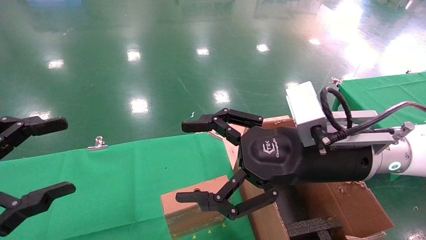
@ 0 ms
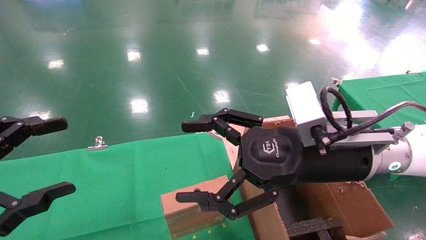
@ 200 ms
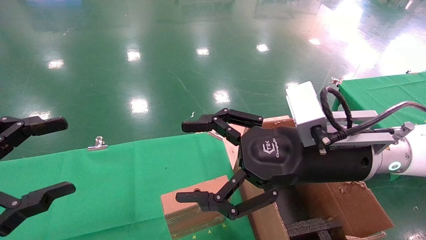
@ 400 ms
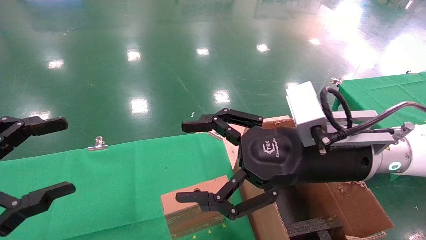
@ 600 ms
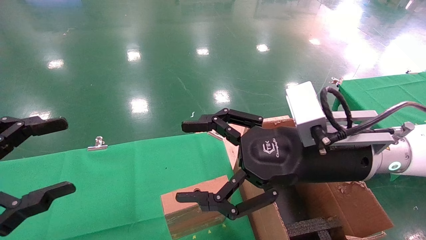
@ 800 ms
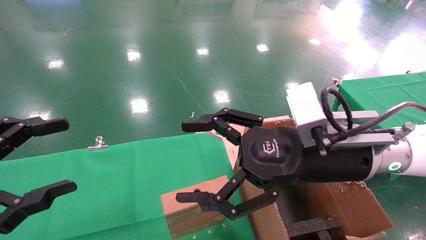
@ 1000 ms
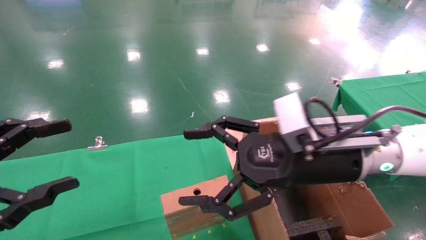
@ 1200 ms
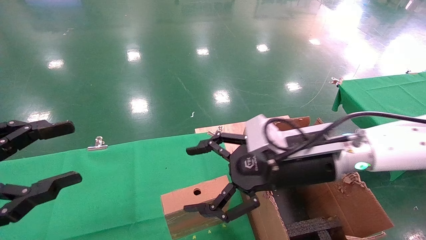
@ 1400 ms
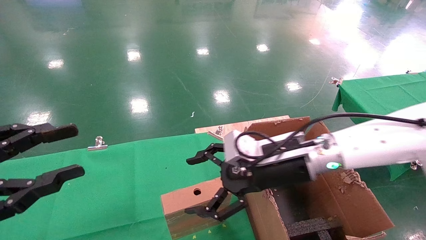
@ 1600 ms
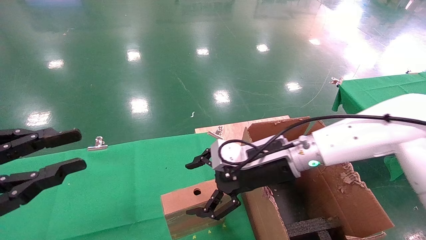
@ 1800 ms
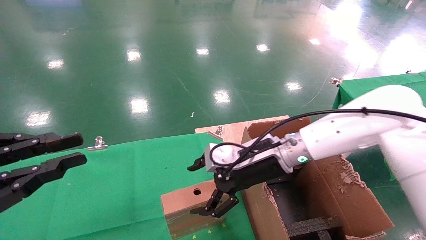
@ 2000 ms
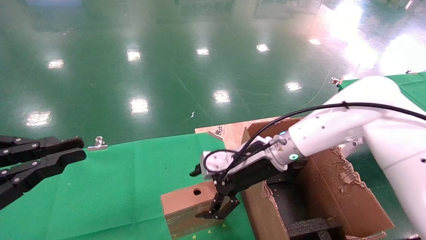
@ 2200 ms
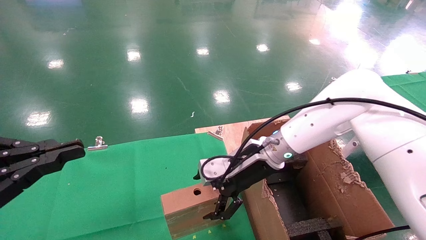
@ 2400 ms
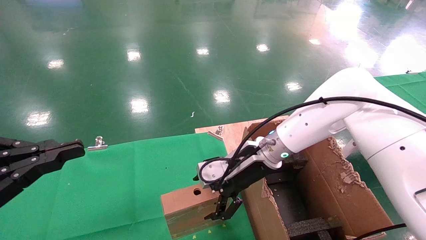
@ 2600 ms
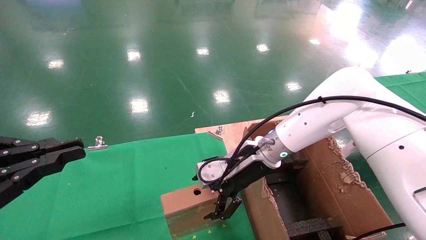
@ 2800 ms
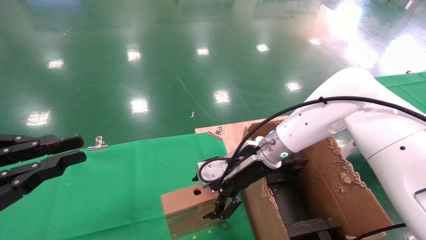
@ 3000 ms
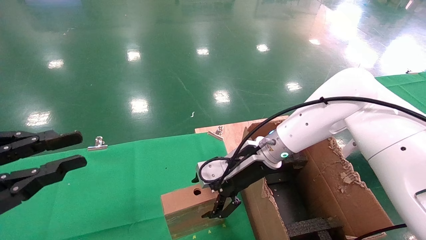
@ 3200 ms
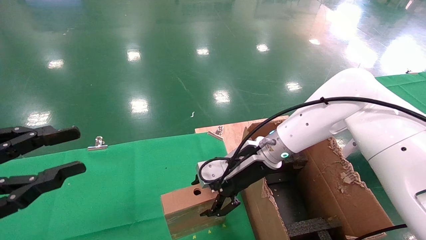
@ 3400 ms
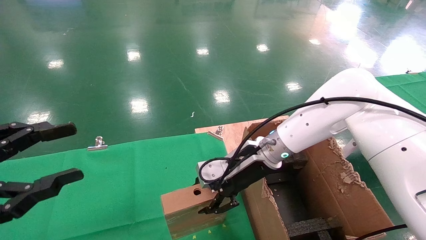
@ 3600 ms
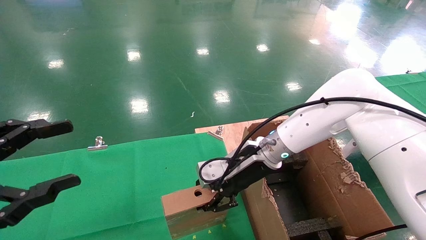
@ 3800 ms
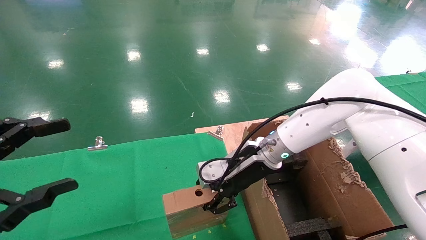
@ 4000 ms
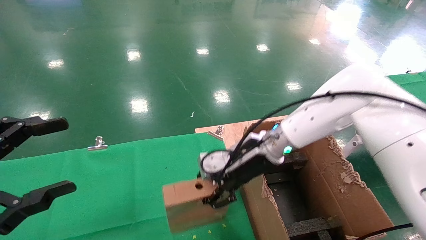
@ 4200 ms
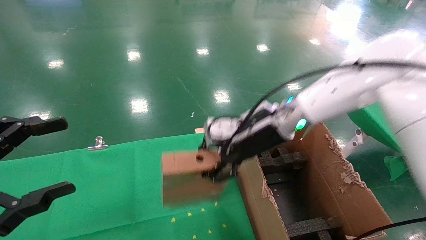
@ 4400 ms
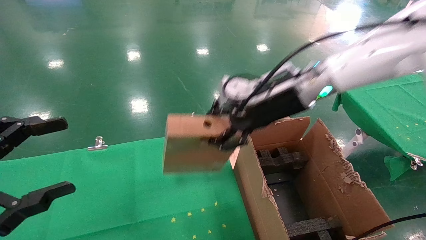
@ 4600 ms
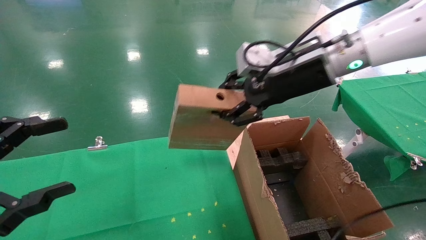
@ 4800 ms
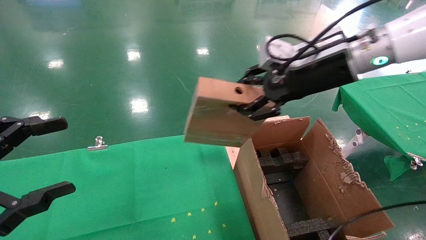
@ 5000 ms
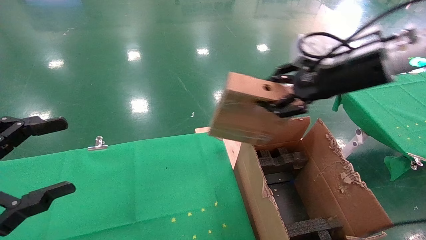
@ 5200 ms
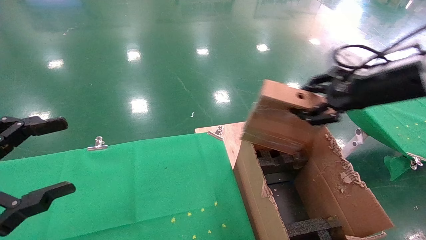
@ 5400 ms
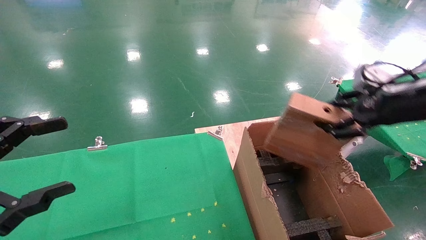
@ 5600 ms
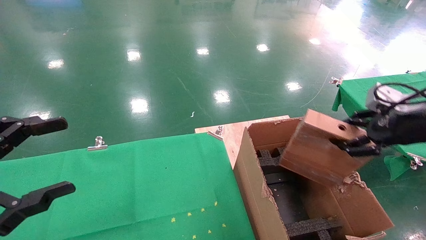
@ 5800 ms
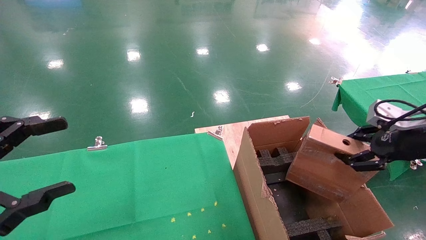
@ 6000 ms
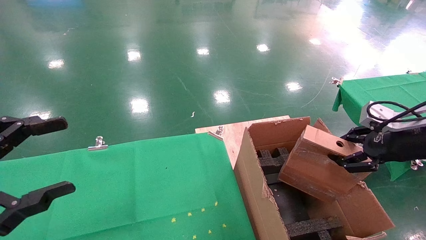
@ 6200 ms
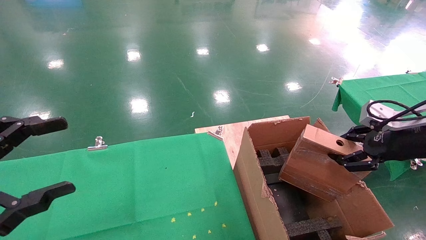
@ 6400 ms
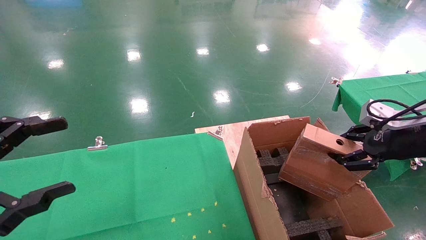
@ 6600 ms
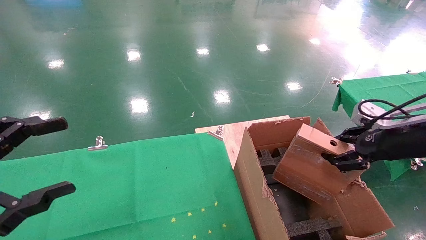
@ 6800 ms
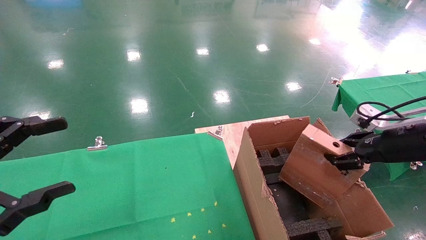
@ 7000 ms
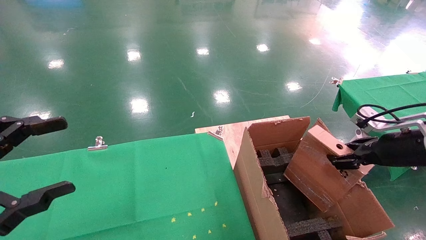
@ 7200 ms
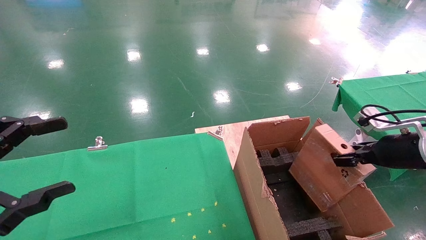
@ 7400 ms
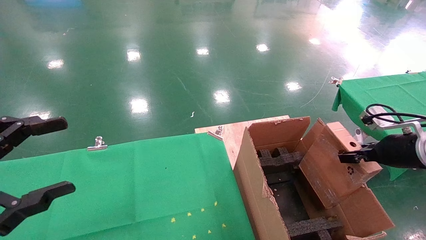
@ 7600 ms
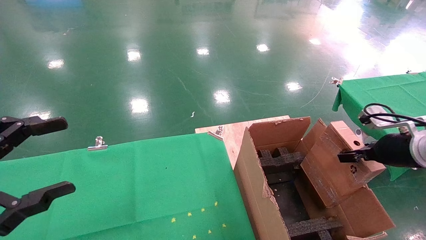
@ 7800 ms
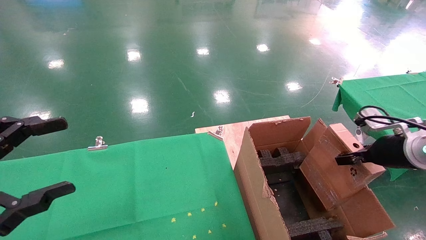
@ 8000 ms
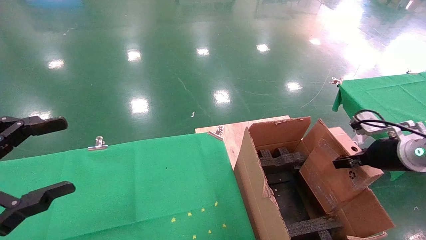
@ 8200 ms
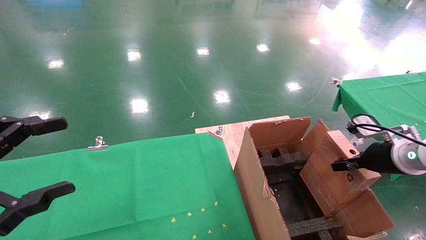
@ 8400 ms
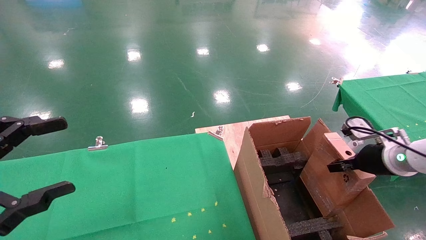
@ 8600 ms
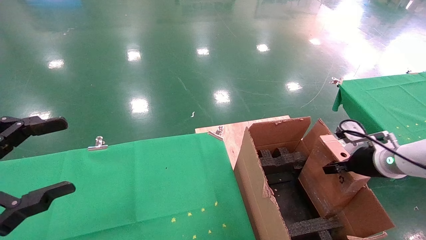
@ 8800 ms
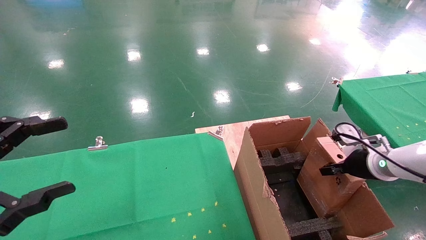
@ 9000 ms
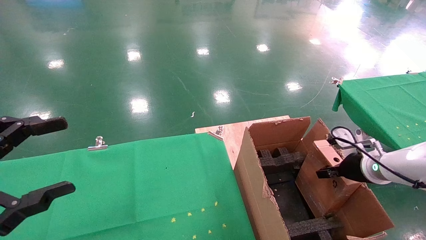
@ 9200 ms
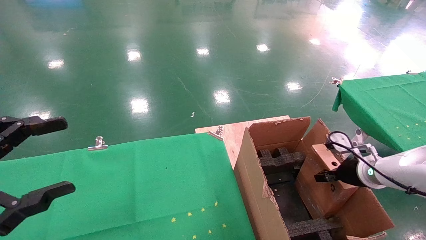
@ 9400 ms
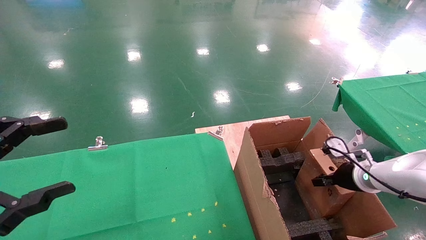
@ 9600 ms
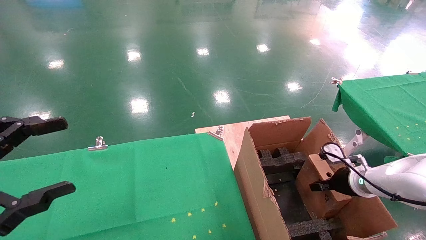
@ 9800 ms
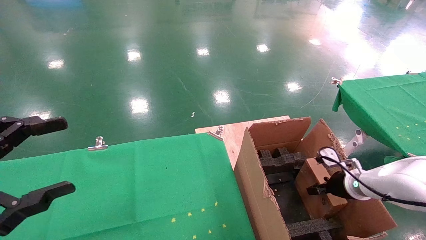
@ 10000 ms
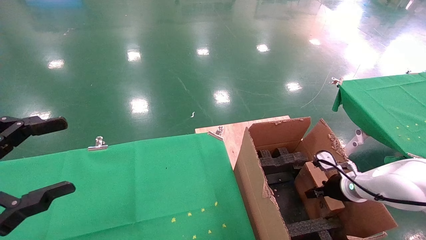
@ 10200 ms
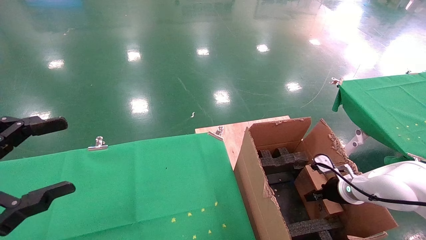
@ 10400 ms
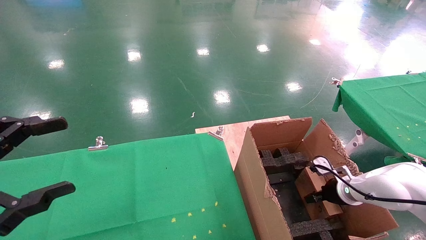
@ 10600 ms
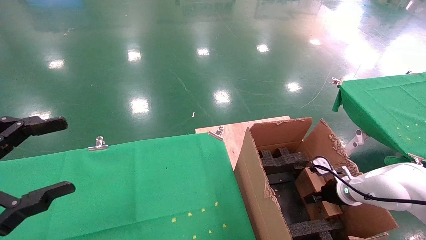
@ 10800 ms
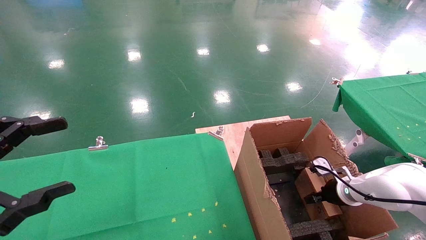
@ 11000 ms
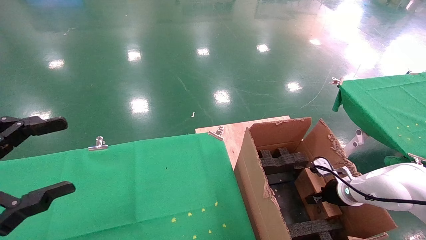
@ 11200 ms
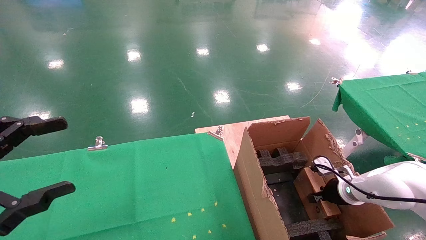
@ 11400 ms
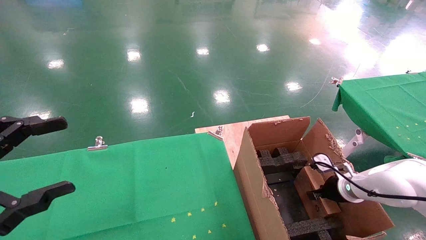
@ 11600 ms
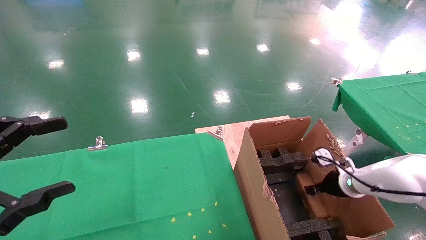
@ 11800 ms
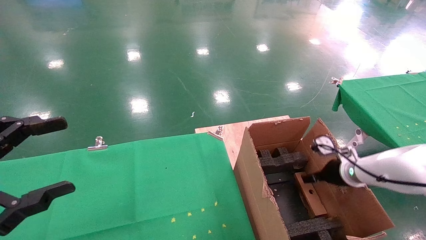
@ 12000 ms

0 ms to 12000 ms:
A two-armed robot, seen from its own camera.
Task of the whole recording: using a robotic arm to pick up a cardboard box and palace it the carton.
Step, 1200 ms to 3800 ms: Pick up the mouse and the power cord paper box.
0 ms to 1600 ms: The right gripper heads forward and downward, covering approximately 10 cm. The left gripper closes its fingers.
1600 ms to 3000 ms: The left gripper closes. The right gripper heads forward, covering some 5 cm.
3000 ms to 4400 ms: The right gripper is displaced upward by approximately 10 cm, and closes up. Meanwhile the left gripper opens up.
4400 ms to 6000 ms: The right gripper heads to the right and backward, covering some 30 cm.
6000 ms to 7600 ms: The right gripper travels downward by roughly 5 cm.
7600 ms to 9000 ms: The right gripper travels downward and forward by some 10 cm.
9000 ms to 10400 ms: The right gripper shifts about 10 cm downward.
10400 ms to 12000 ms: The right gripper goes approximately 5 cm upward, and opens its fingers.

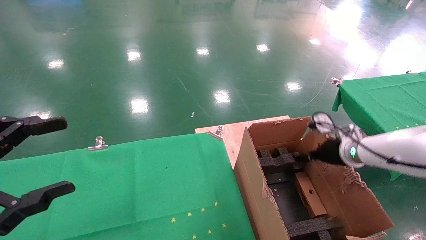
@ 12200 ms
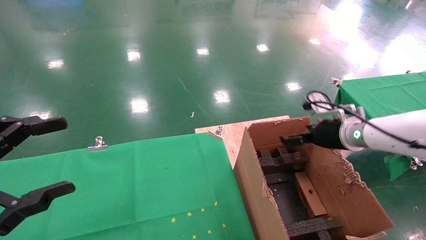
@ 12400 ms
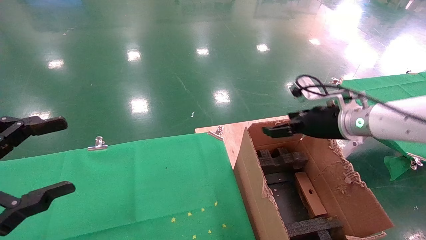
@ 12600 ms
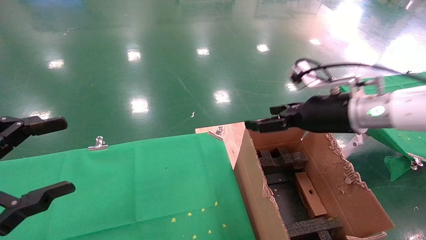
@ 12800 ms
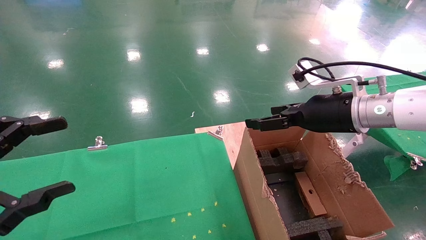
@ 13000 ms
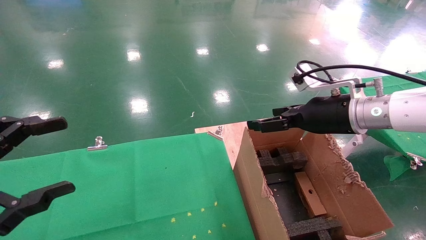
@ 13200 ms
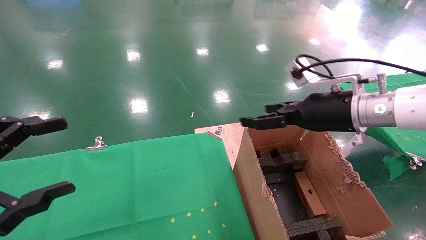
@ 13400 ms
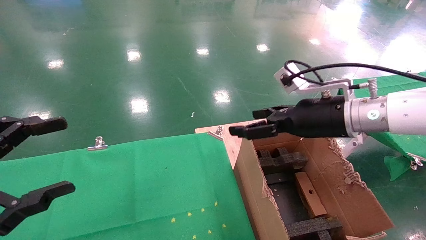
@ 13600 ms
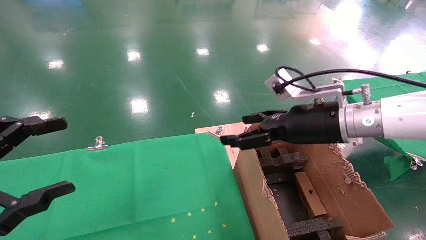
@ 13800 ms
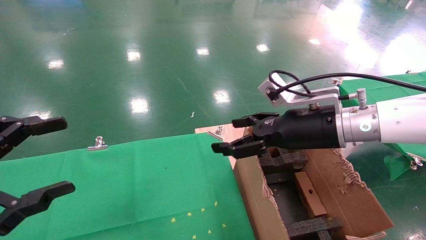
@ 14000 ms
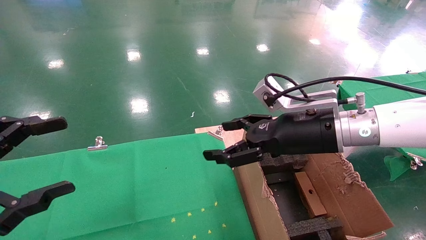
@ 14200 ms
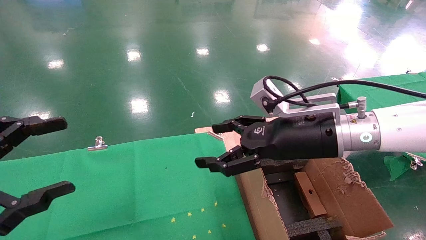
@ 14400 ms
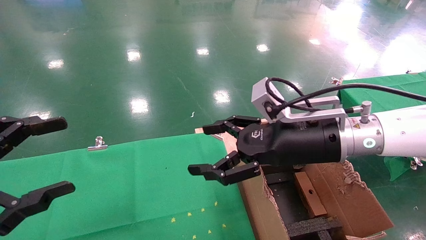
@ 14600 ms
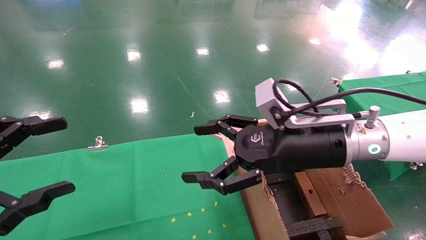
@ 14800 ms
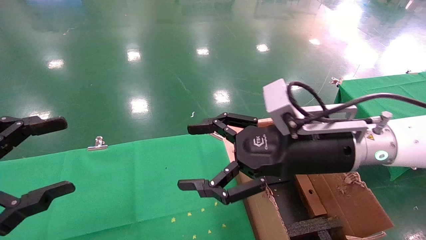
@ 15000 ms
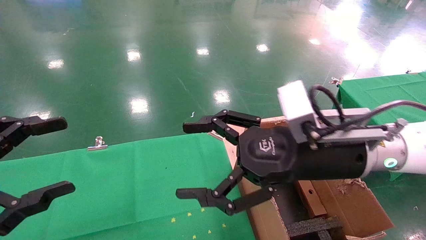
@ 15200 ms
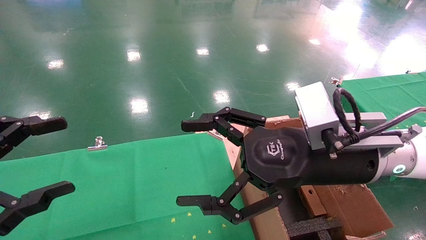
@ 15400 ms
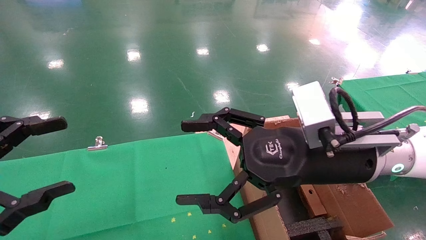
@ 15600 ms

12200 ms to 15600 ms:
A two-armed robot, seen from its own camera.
Task of the whole recording: using a robotic arm to pick up a cardboard box and palace it the carton.
12200 ms to 13800 ms: The right gripper heads to the left, upward and backward, covering some 20 cm.
13800 ms to 15600 ms: The right gripper goes approximately 10 cm backward and to the left.

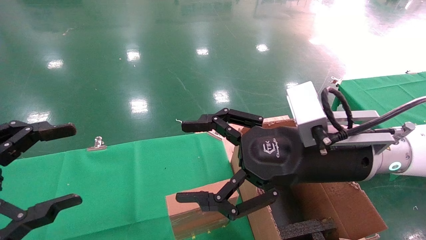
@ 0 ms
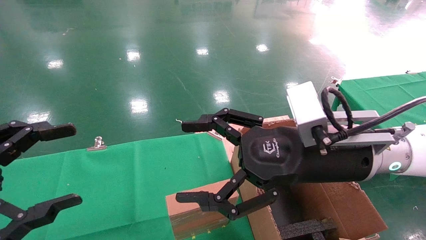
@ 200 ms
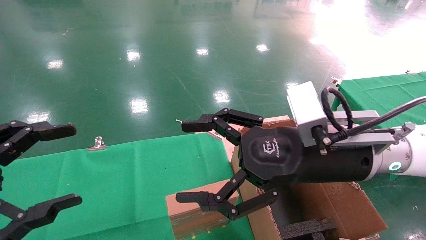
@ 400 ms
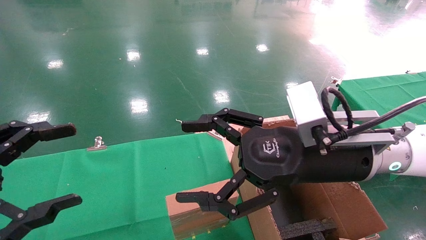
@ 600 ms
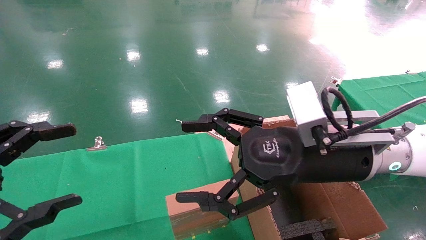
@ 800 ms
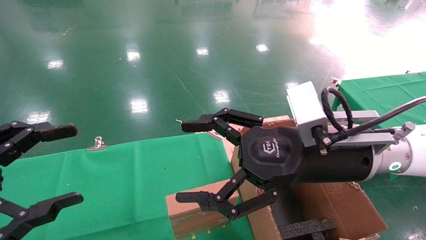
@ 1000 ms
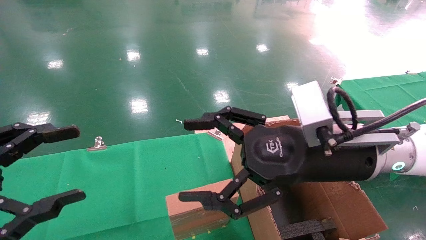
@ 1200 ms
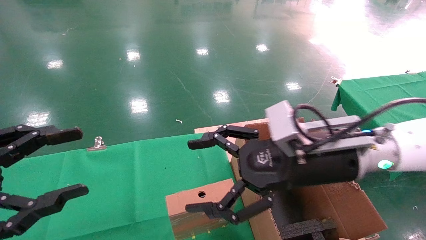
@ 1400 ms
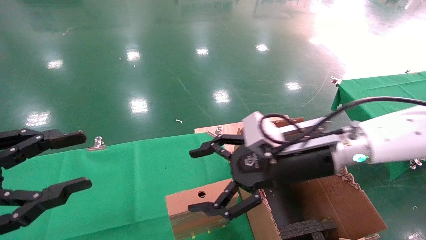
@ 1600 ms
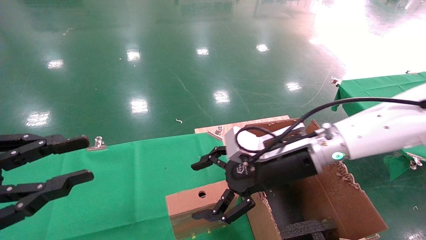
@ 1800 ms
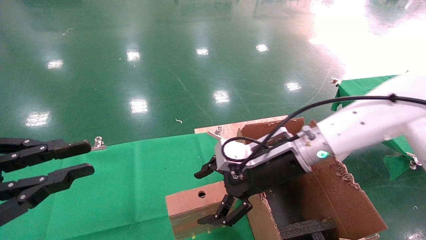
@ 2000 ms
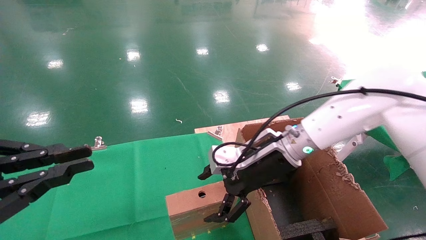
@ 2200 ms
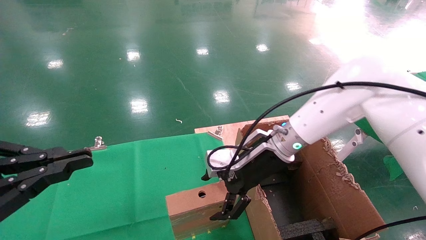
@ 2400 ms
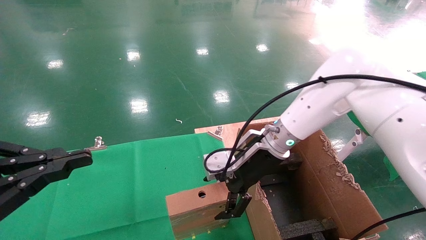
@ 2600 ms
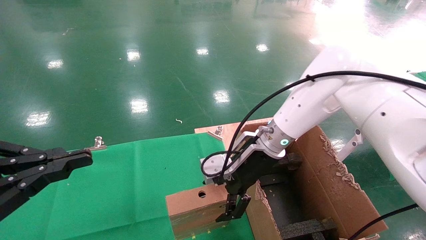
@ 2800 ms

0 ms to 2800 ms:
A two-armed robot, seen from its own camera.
Task of the whole recording: using a robotic arm to pick up a cardboard box and palace it the carton.
0 ms to 1400 ms: The grippers make only small movements.
1400 ms to 2800 ms: The left gripper closes up; the right gripper goes about 10 cm forward.
